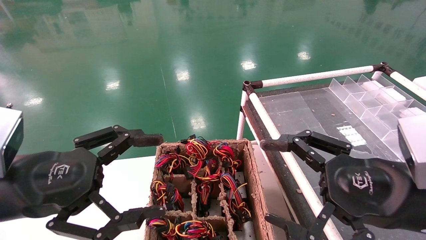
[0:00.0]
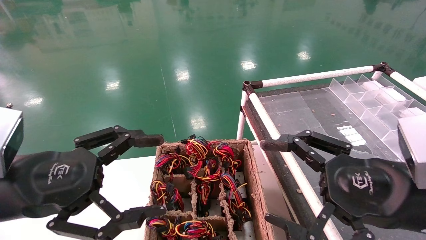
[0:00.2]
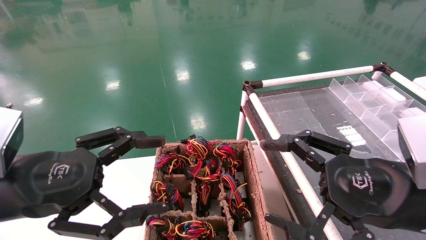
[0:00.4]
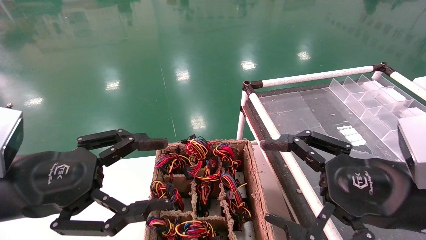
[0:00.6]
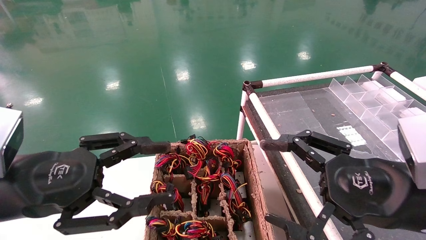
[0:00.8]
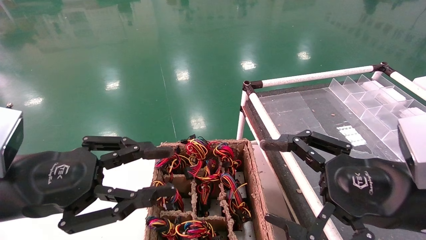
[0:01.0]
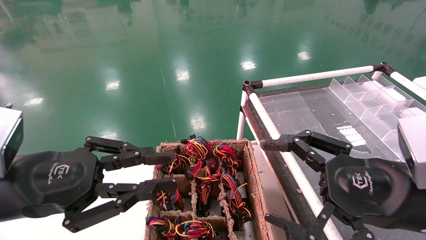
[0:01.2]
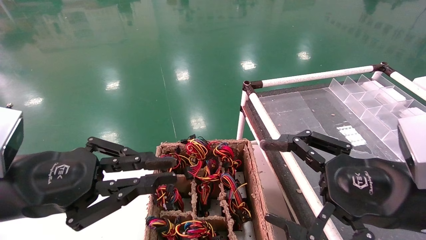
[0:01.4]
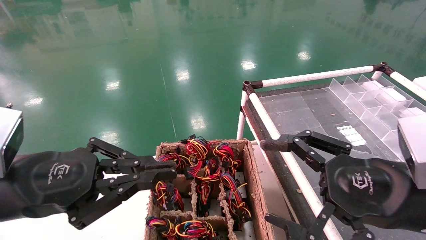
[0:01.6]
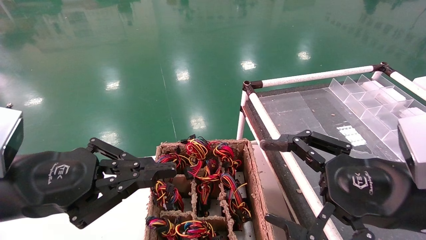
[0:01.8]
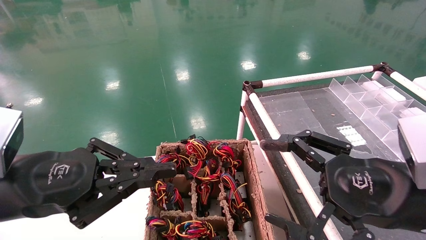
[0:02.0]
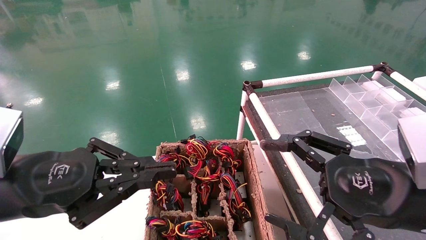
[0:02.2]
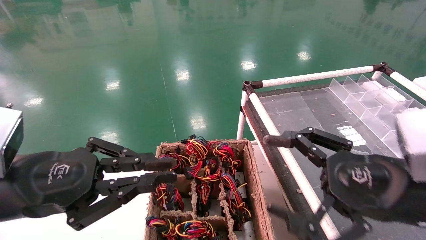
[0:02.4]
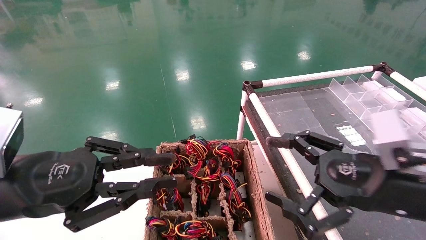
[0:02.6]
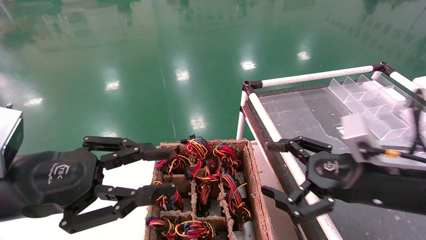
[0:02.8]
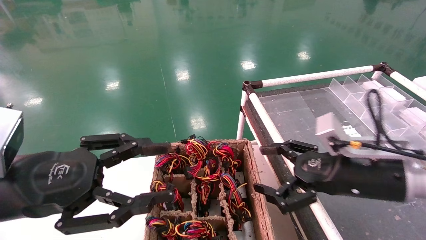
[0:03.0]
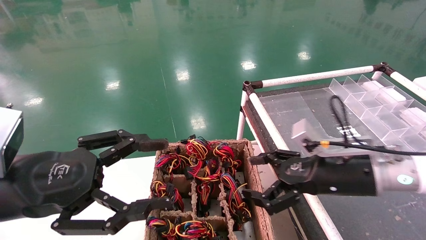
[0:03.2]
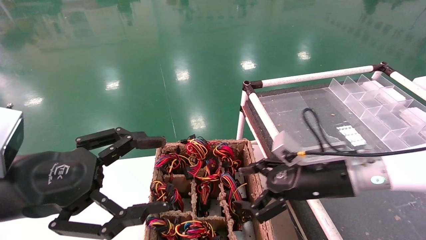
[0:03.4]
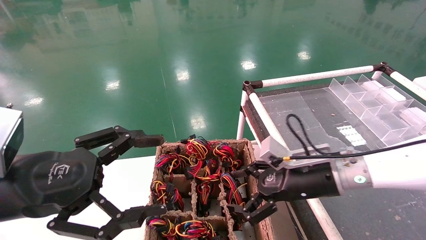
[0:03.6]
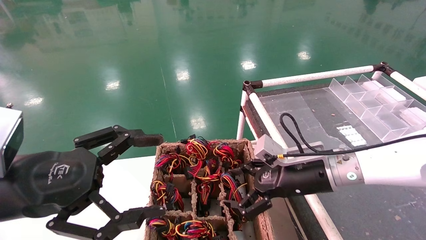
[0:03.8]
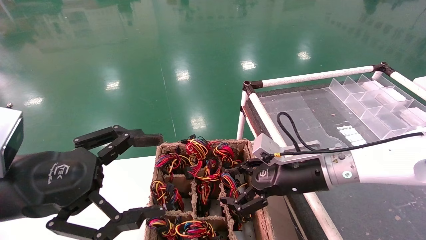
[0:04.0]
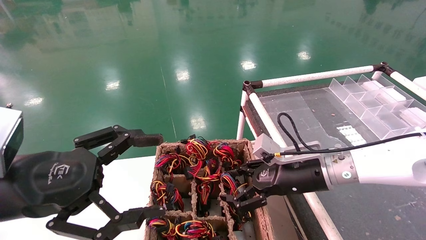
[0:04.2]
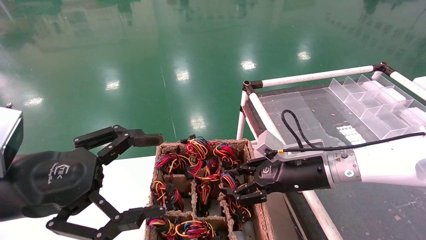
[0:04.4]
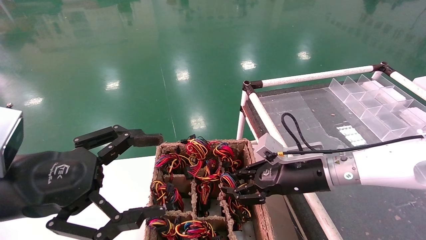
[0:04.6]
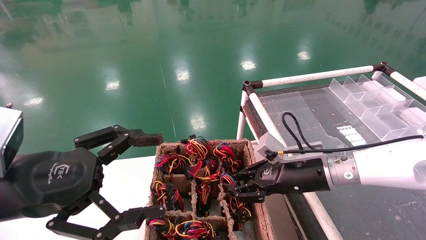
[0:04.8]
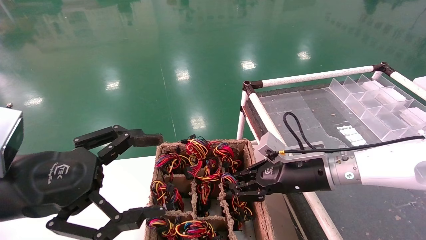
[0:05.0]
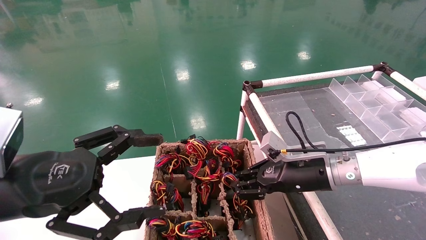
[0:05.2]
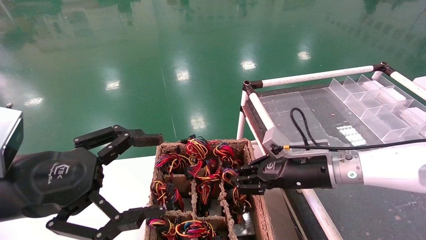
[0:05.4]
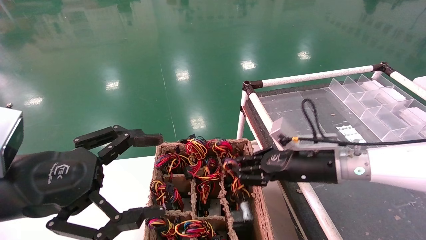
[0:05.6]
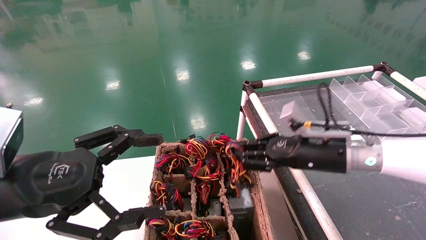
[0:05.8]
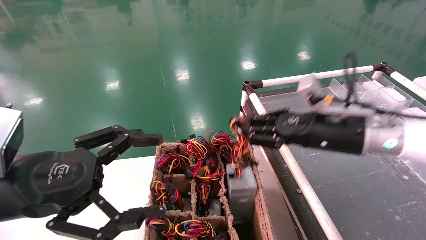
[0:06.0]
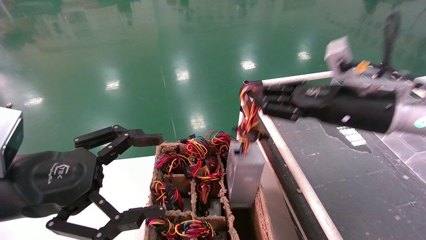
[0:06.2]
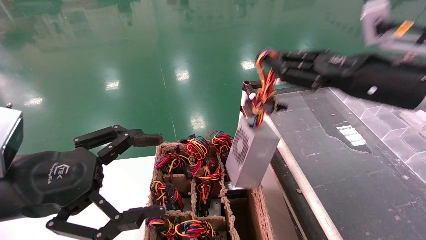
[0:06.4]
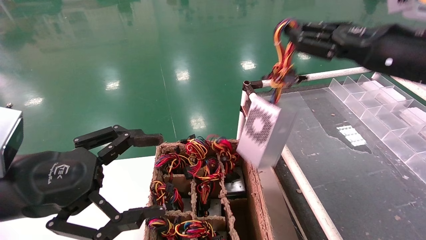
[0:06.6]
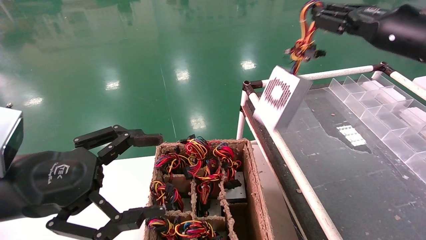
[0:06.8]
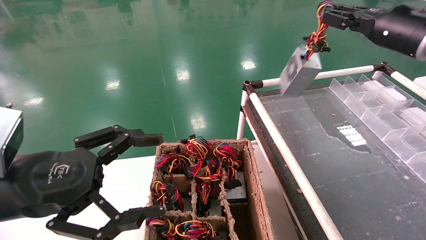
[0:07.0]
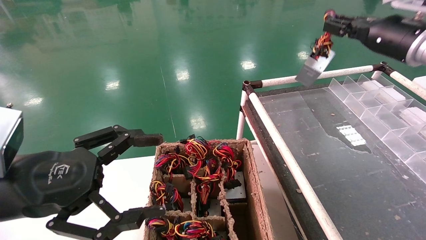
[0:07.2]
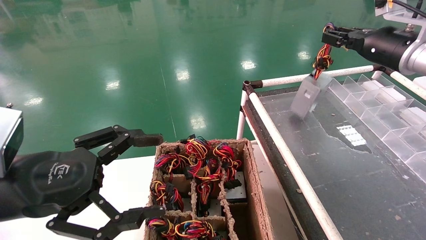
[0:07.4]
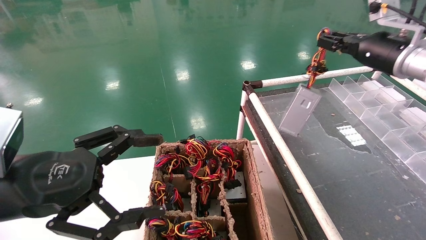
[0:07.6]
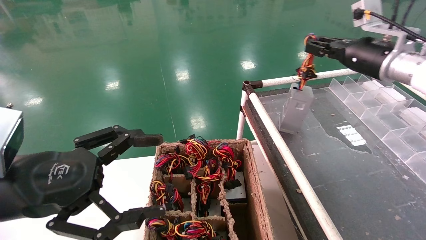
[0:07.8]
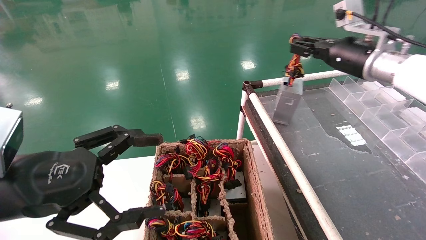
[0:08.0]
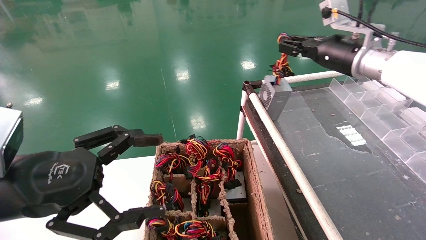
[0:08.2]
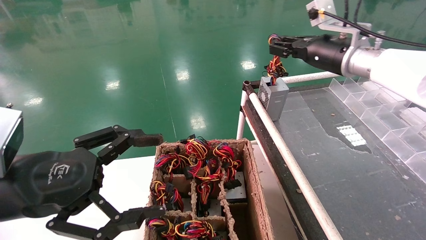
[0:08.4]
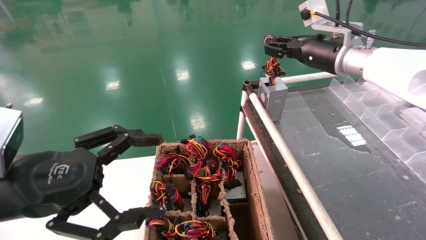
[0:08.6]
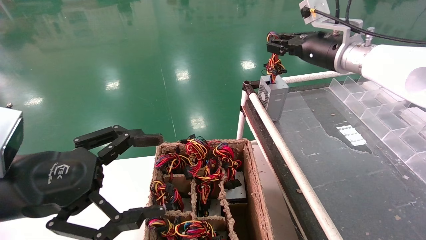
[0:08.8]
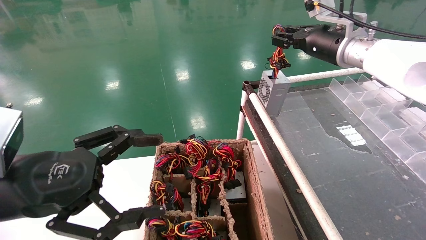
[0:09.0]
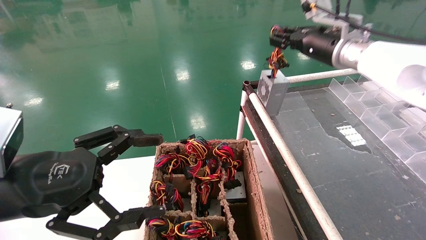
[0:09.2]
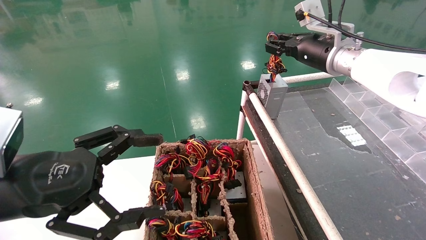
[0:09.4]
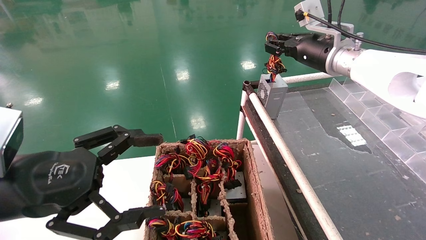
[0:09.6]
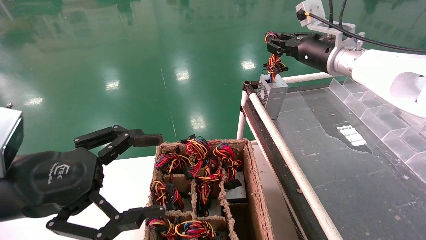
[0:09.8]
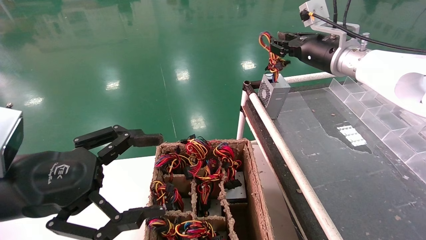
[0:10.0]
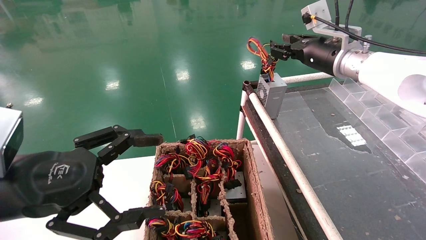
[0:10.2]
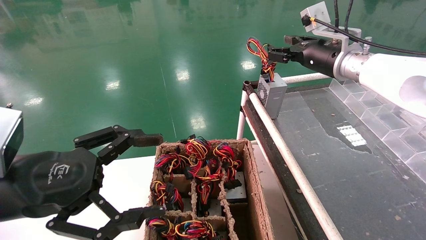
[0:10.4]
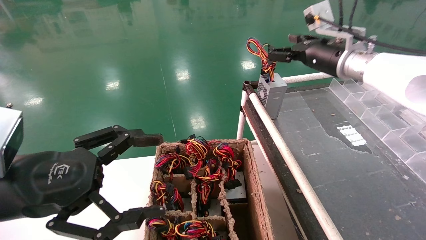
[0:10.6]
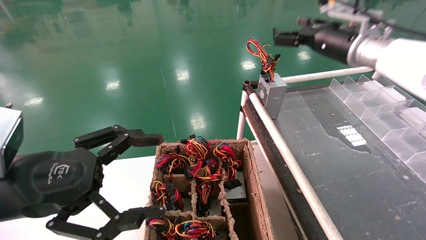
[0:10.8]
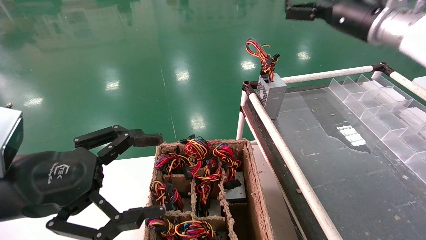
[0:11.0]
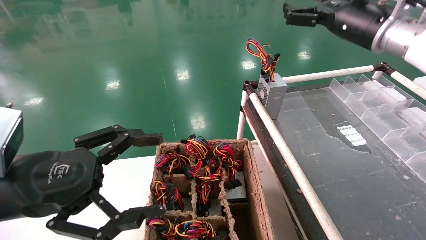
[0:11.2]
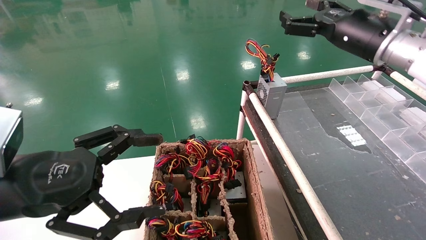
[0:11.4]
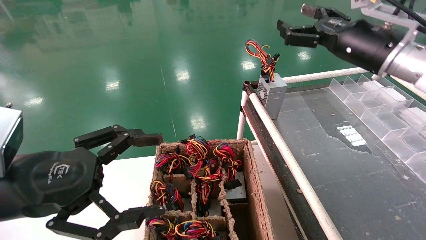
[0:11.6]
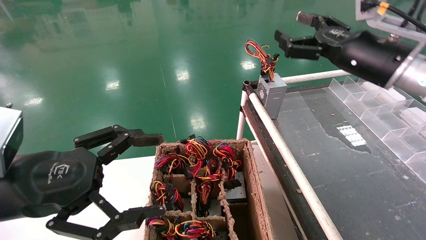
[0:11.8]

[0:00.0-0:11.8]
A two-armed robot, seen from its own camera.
Step, 2.0 to 5.2 s: Grab and lift the power supply from the large box.
Step, 5.4 to 9.8 s: Place the power supply on the operating table.
0.0 to 1.4 s: The left gripper closes its fingers.
1.4 to 3.0 s: The right gripper shifts approximately 10 cm forward.
3.0 to 4.4 s: The left gripper opens up, while the right gripper travels forward and to the left by approximately 10 cm, and closes up.
4.4 to 6.0 s: The right gripper moves upward, approximately 10 cm, and closes its fingers.
6.0 to 7.4 s: The right gripper is displaced upward, to the right and forward by approximately 20 cm.
7.4 to 8.8 s: The right gripper moves to the left, about 10 cm.
8.8 to 10.4 s: The right gripper opens its fingers.
10.4 to 11.8 s: The right gripper travels backward by about 10 cm, and opens up.

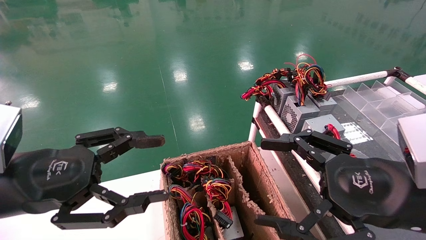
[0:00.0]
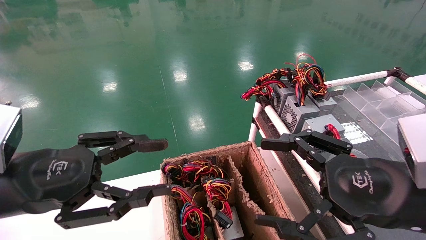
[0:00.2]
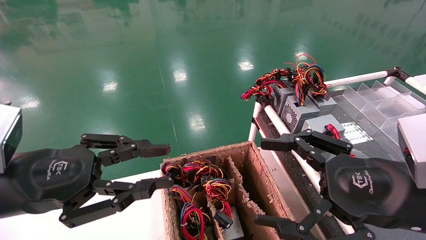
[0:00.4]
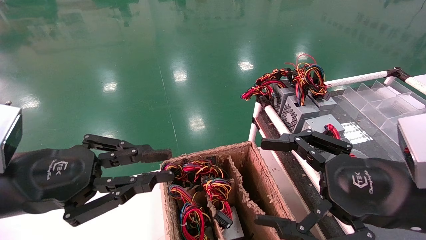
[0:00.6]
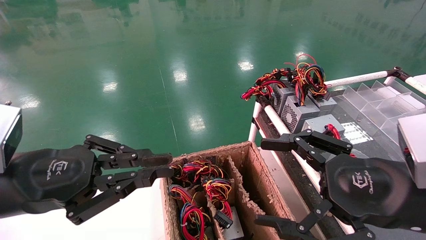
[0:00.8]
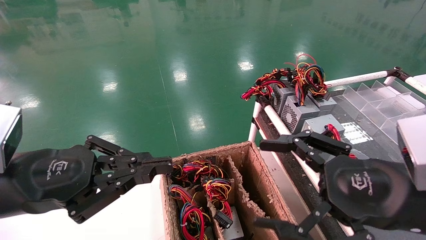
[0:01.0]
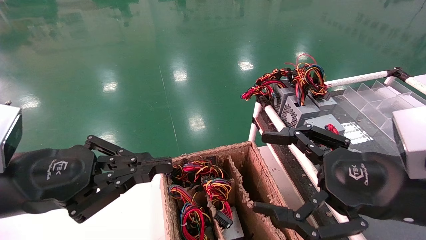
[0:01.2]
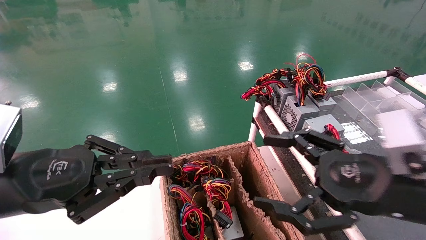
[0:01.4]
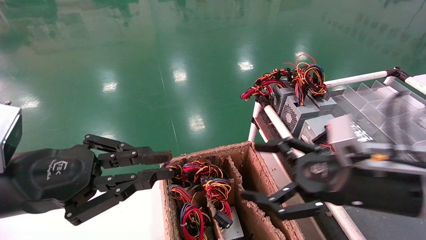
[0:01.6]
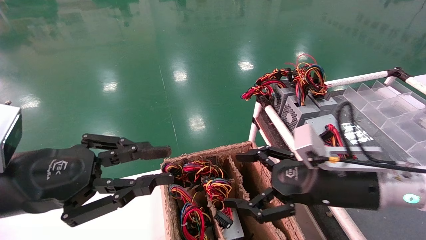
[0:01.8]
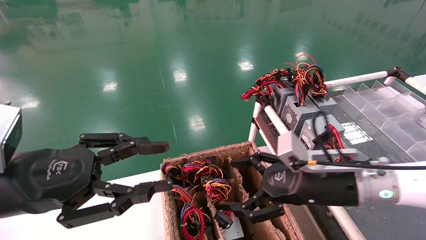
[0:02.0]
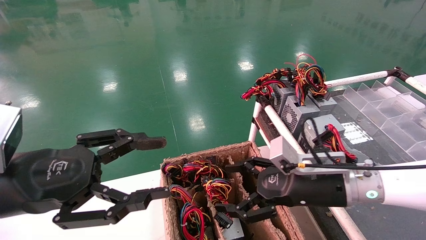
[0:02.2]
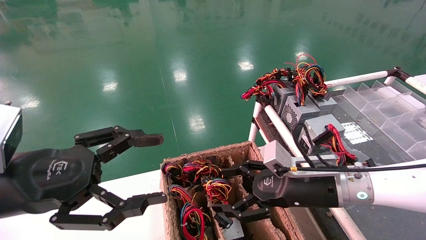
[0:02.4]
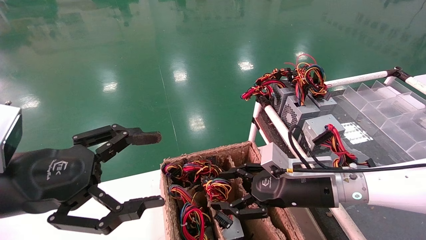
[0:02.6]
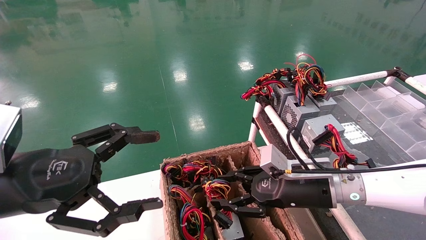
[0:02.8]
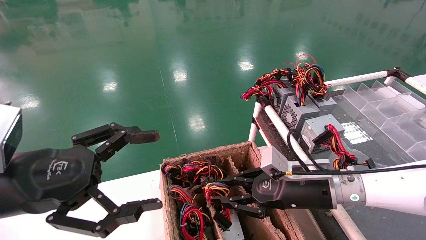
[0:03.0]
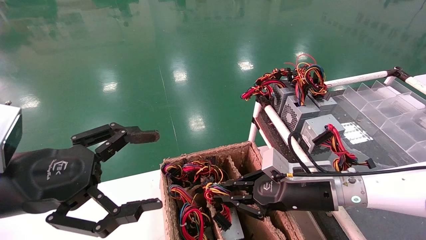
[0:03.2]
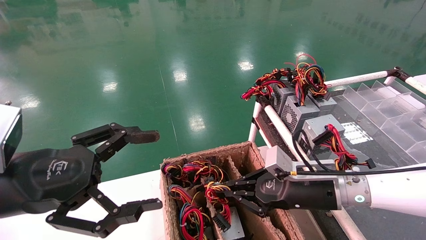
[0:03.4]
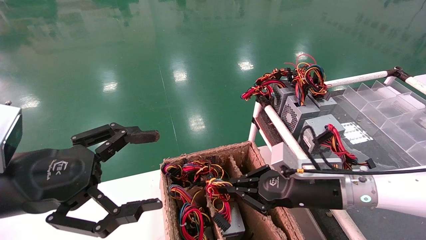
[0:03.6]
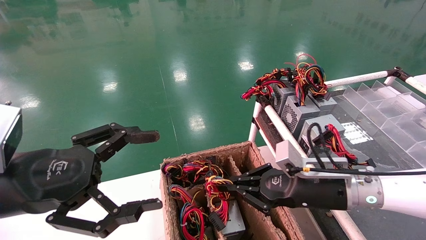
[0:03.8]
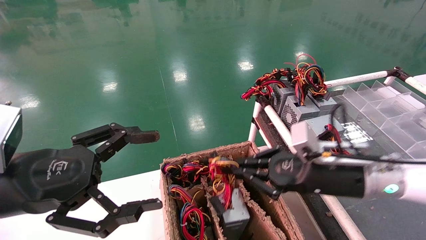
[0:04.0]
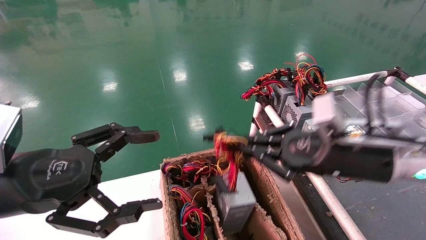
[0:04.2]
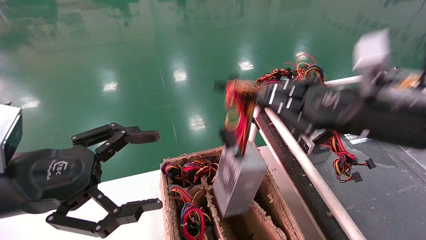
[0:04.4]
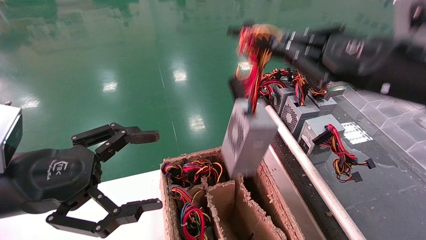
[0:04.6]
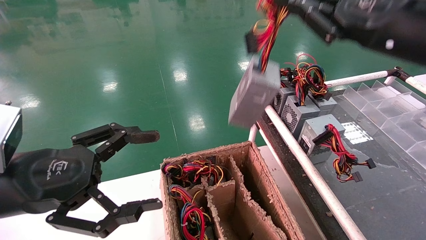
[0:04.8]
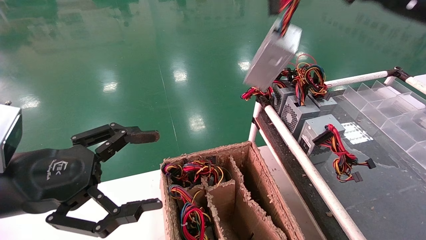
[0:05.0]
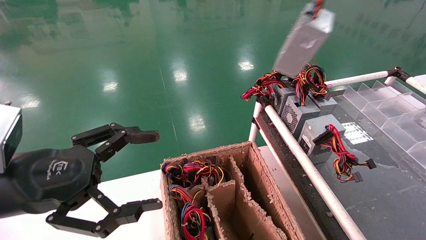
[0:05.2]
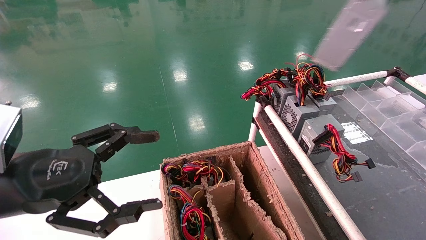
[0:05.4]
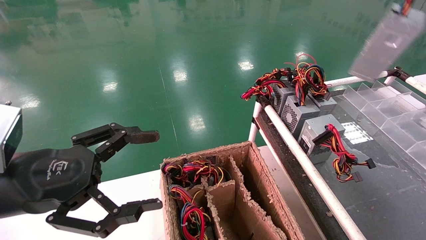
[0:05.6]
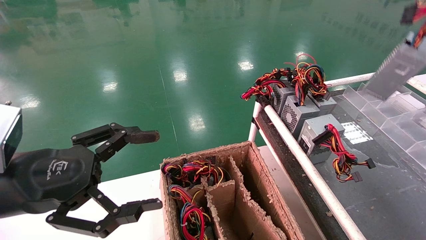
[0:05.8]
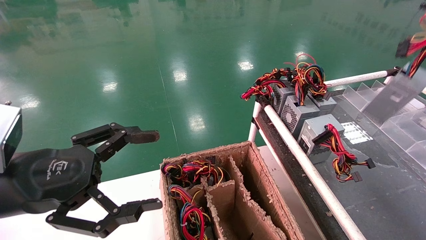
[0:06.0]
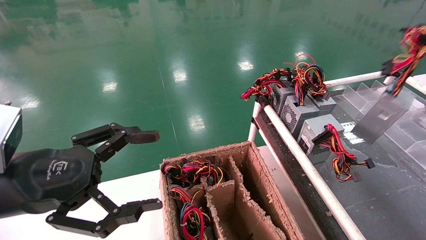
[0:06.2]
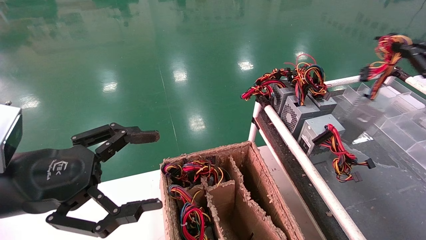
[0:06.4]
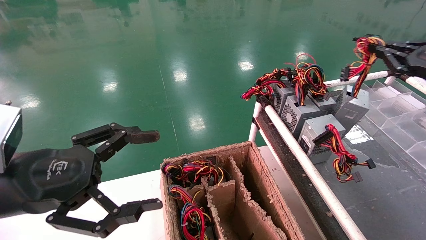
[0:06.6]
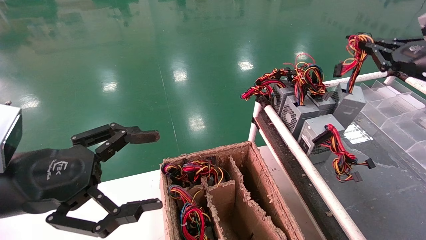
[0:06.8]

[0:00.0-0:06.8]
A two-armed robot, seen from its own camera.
Step, 1.2 to 3.8 s: Grab and lift the power supply from the large box.
0.0 to 1.4 s: The left gripper closes up.
1.4 to 2.8 s: The left gripper opens its fingers, while the right gripper goes some 15 cm forward, downward and to the left, and closes.
2.8 to 4.0 s: The right gripper shifts roughly 5 cm upward, and closes up.
4.0 to 5.4 s: The right gripper is displaced upward and to the right by some 35 cm.
5.4 to 6.8 s: The right gripper is displaced downward and forward by roughly 15 cm.
